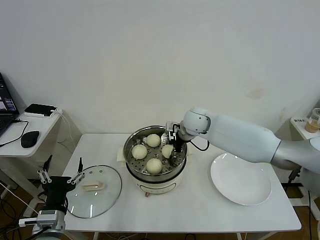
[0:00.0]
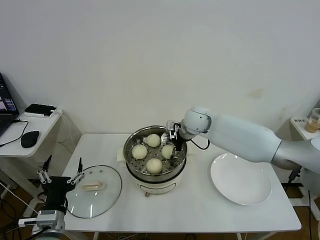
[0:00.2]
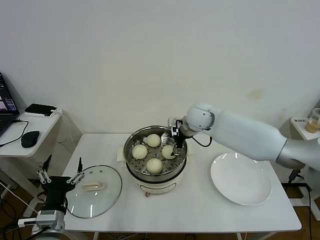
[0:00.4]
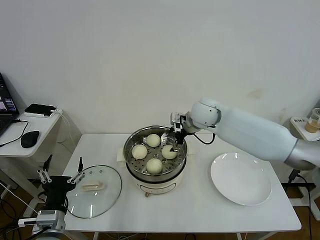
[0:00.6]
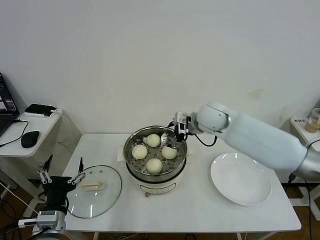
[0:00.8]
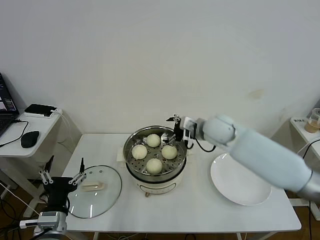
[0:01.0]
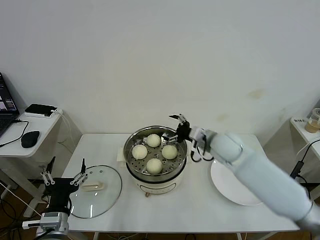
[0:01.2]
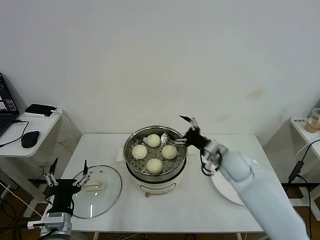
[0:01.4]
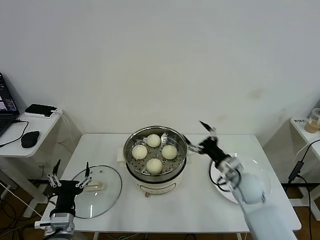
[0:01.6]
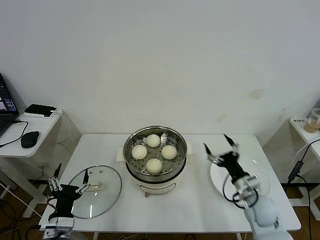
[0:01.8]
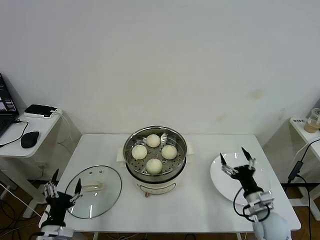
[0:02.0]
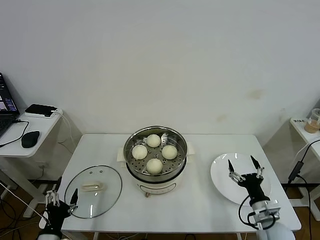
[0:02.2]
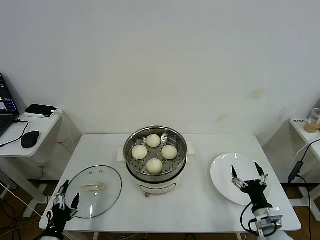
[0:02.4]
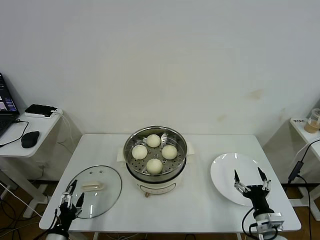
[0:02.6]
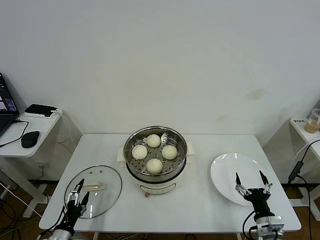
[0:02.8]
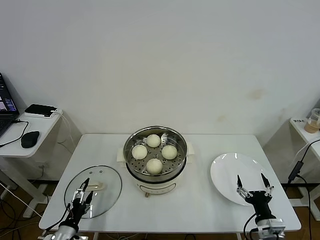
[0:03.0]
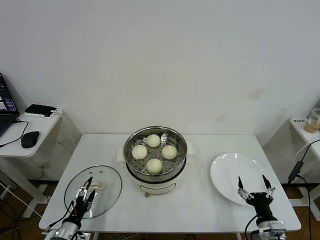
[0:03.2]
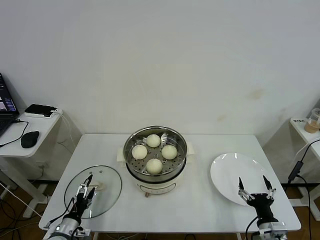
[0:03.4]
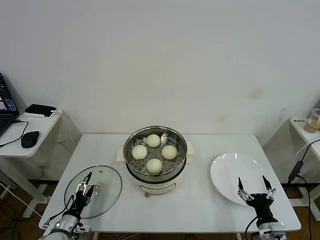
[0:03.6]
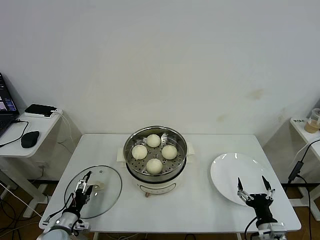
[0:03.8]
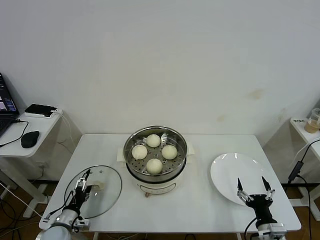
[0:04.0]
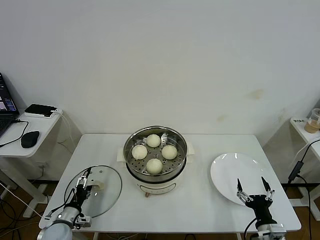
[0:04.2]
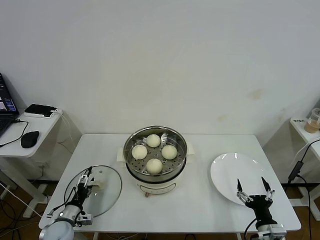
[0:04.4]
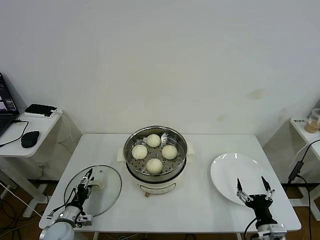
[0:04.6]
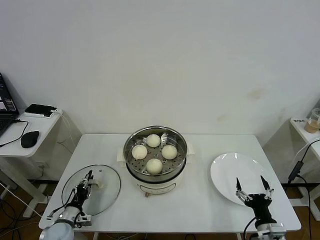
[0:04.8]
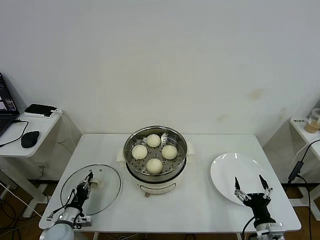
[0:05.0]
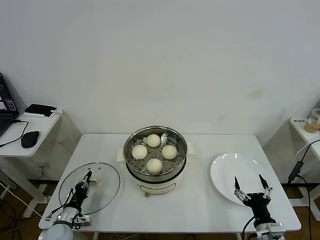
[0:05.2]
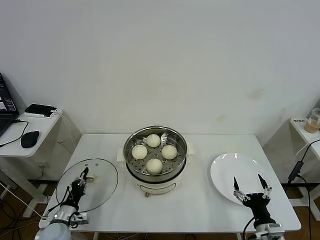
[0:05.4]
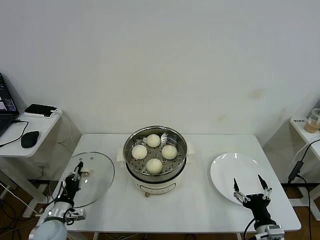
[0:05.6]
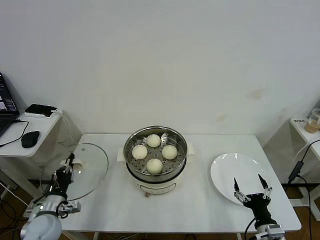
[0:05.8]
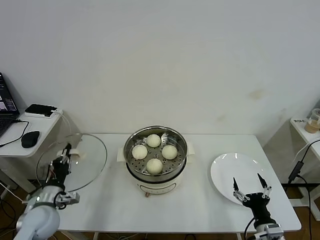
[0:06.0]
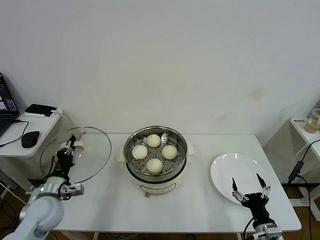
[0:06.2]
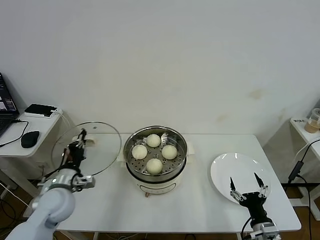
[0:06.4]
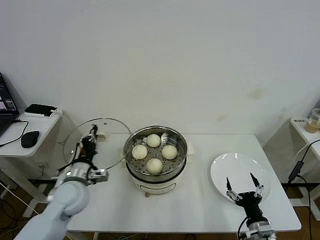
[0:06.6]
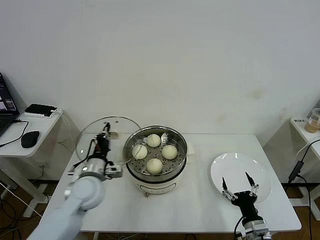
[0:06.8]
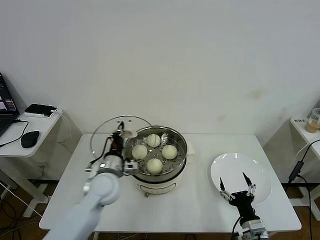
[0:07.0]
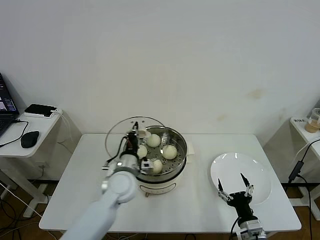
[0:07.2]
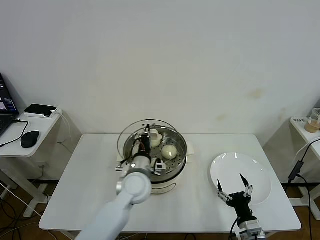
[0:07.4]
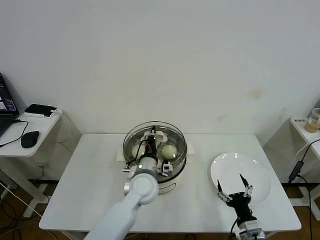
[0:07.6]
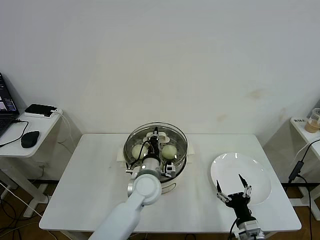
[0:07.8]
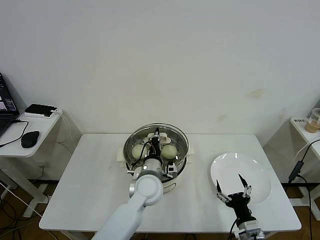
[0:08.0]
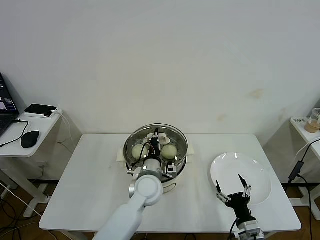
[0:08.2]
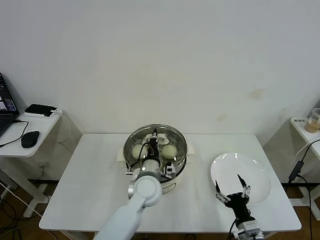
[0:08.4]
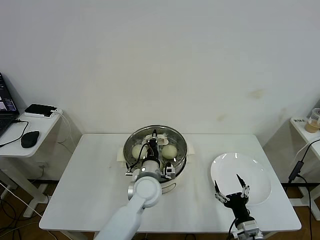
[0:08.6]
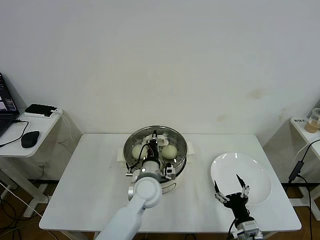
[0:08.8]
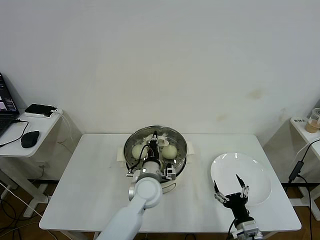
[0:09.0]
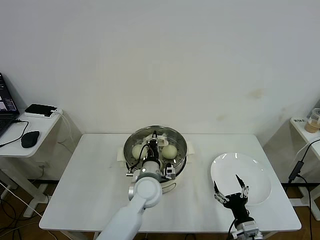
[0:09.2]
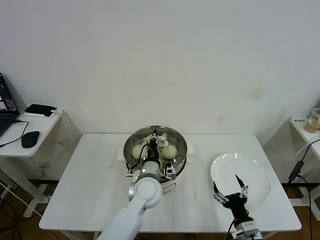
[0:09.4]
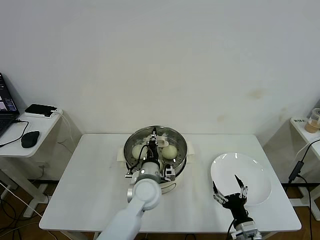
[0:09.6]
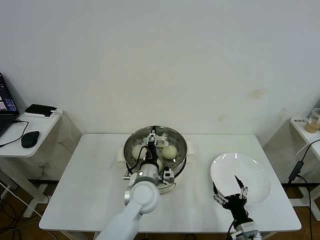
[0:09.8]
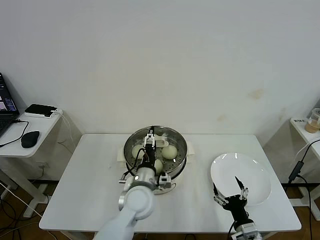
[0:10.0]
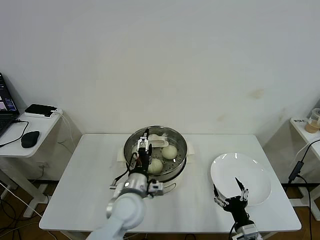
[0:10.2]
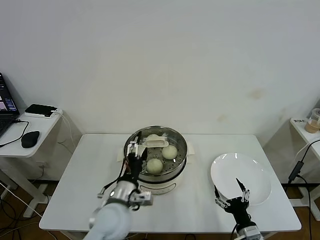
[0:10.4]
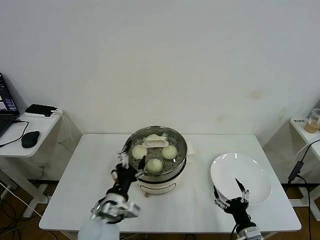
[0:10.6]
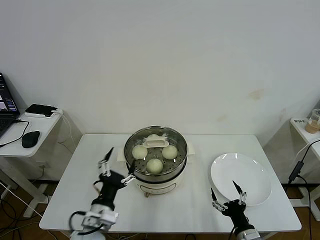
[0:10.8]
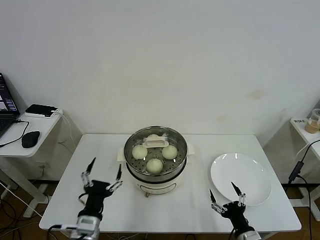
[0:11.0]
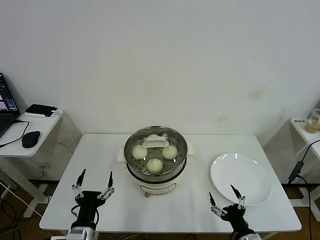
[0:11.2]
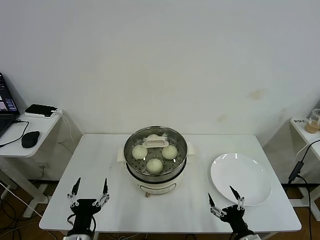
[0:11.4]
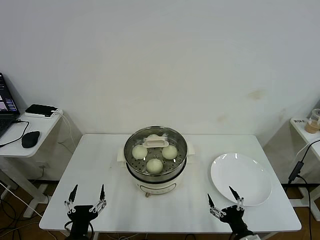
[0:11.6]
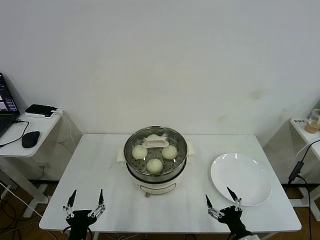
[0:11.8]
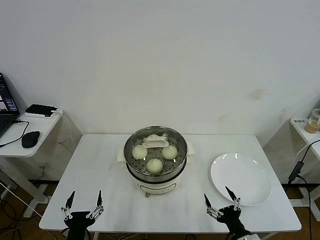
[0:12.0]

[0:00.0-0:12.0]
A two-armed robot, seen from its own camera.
Task of the whole recording: take steamed baozi put them in steamer then cover it.
Step, 0:00.4 to 0:05.2: Grasp the pot lid with left gripper.
Step, 0:05.4 to 0:09.8: Place the pot lid on the steamer with left gripper.
0:00.0 to 0:01.6: The right gripper goes about 25 cm backward, to the right and downward, and opens.
0:01.6 to 0:03.0: The right gripper goes approximately 20 cm backward and downward; the left gripper is displaced downward and to the left by approximately 15 cm.
0:03.0 to 0:04.4: The left gripper moves forward, approximately 10 cm.
0:04.4 to 0:06.0: The left gripper shifts roughly 15 cm upward, and closes.
0:06.0 to 0:07.6: The left gripper heads to the right, covering about 30 cm.
0:07.6 to 0:09.0: The grippers stay close to where they were, moving slightly.
0:09.0 to 0:10.4: The left gripper shifts roughly 10 cm backward and to the left, and opens.
0:10.4 to 0:12.0: The left gripper shifts about 20 cm backward, to the left and downward.
